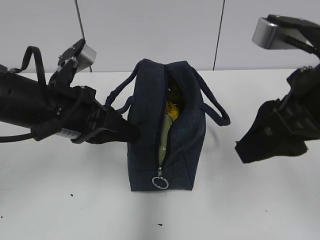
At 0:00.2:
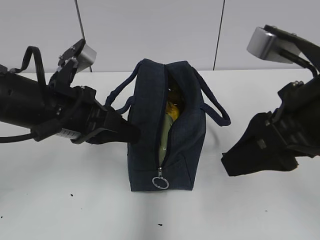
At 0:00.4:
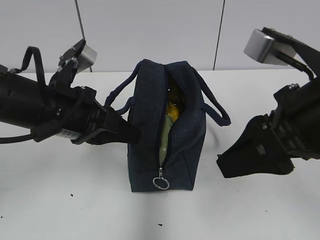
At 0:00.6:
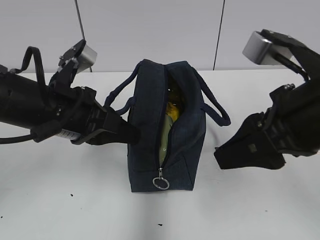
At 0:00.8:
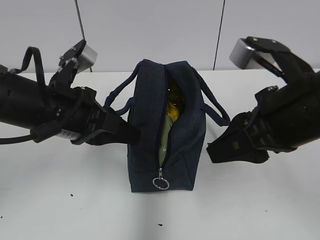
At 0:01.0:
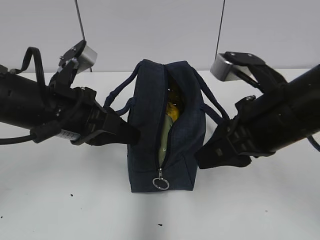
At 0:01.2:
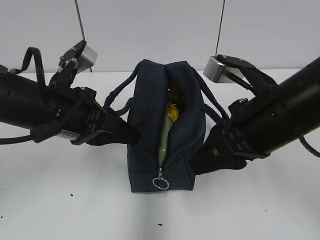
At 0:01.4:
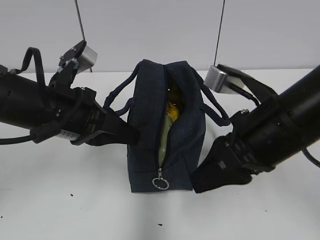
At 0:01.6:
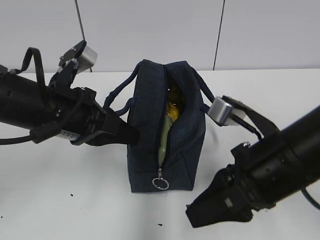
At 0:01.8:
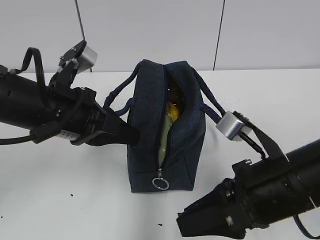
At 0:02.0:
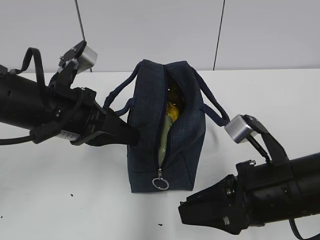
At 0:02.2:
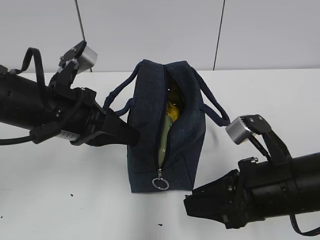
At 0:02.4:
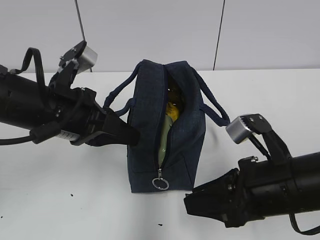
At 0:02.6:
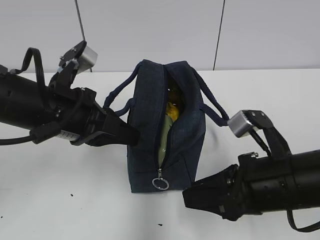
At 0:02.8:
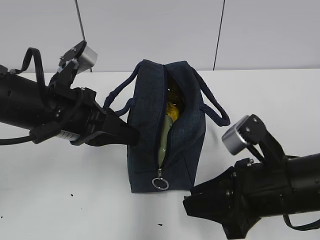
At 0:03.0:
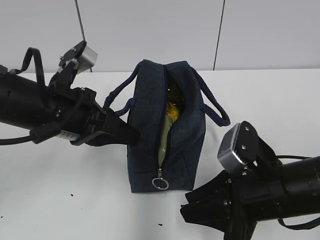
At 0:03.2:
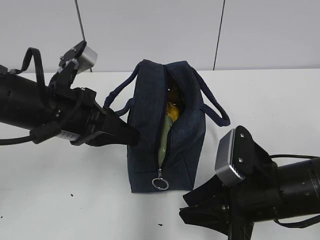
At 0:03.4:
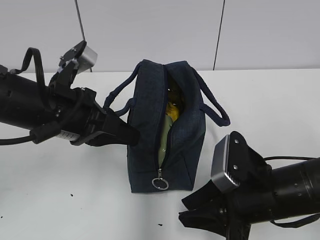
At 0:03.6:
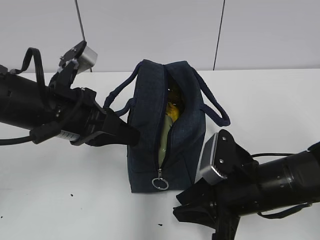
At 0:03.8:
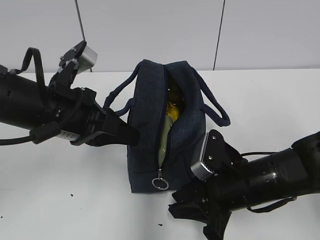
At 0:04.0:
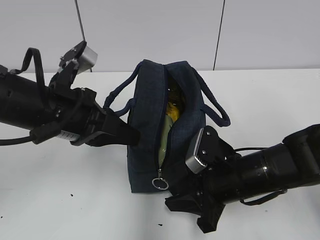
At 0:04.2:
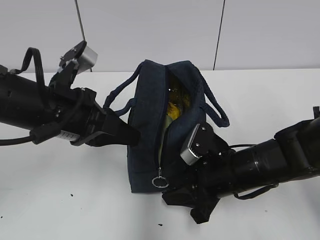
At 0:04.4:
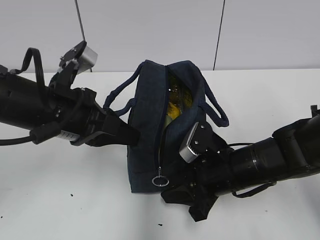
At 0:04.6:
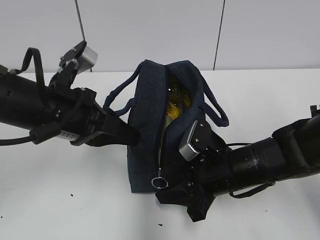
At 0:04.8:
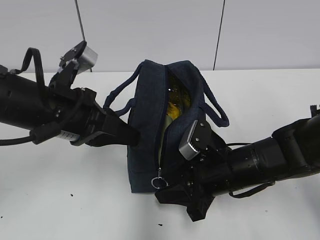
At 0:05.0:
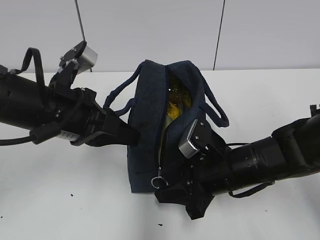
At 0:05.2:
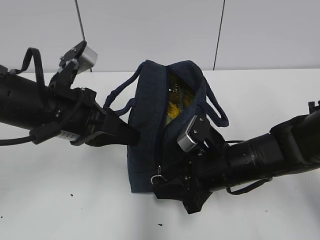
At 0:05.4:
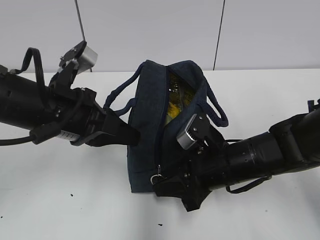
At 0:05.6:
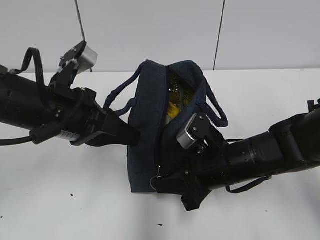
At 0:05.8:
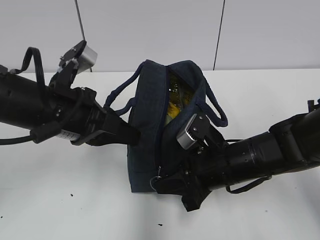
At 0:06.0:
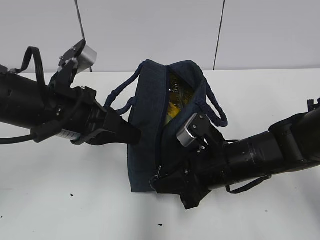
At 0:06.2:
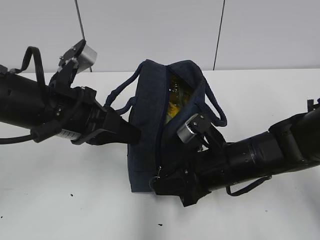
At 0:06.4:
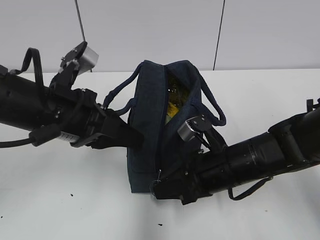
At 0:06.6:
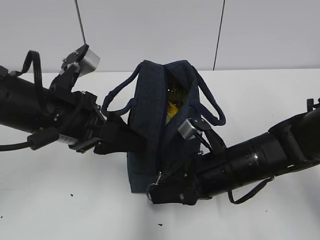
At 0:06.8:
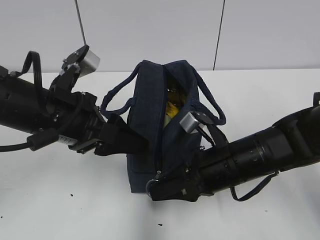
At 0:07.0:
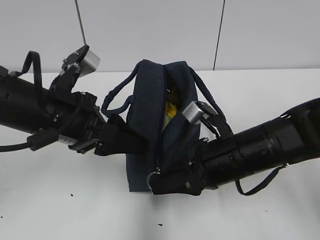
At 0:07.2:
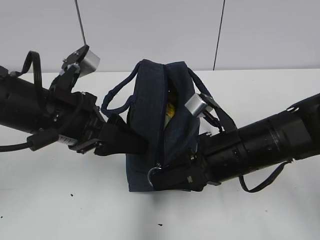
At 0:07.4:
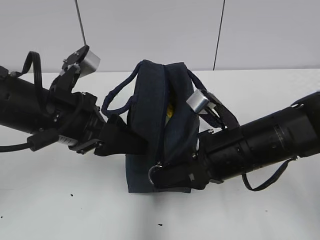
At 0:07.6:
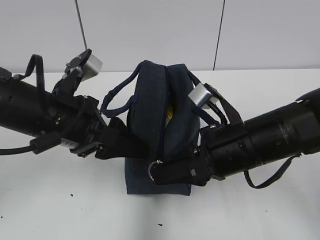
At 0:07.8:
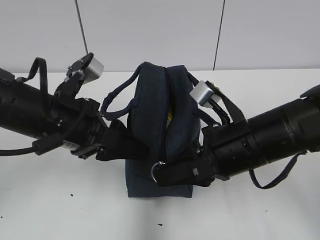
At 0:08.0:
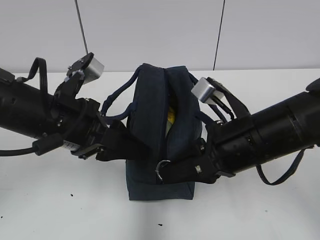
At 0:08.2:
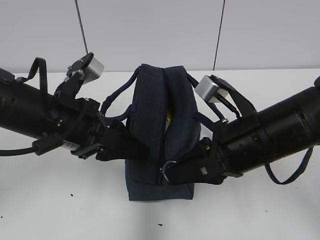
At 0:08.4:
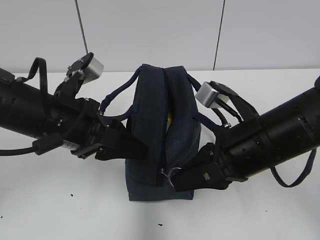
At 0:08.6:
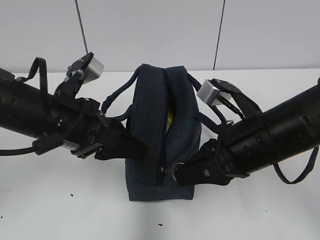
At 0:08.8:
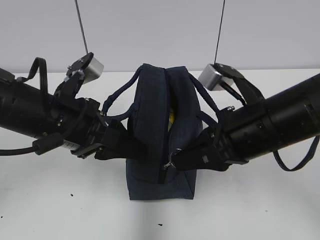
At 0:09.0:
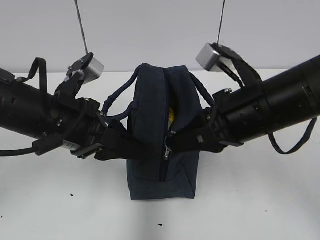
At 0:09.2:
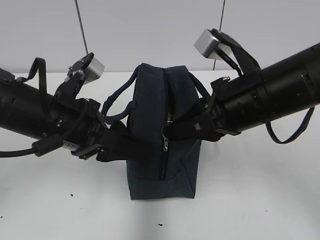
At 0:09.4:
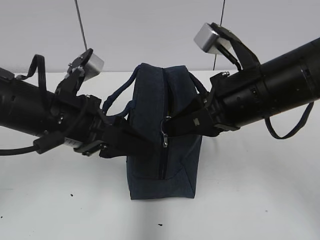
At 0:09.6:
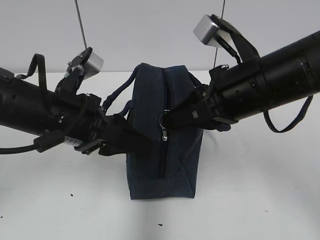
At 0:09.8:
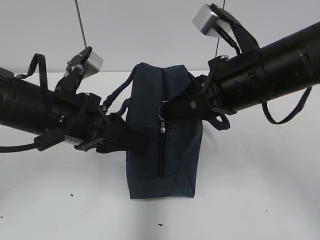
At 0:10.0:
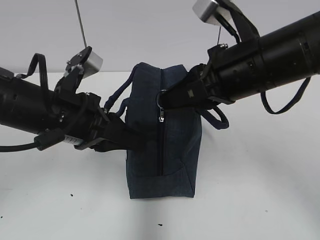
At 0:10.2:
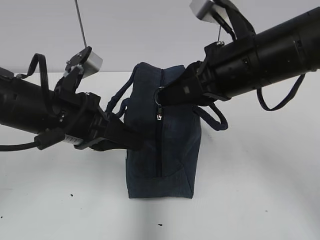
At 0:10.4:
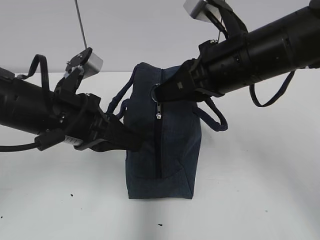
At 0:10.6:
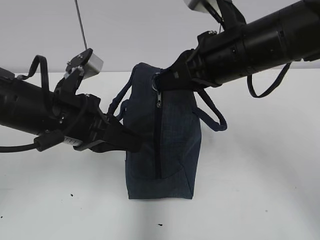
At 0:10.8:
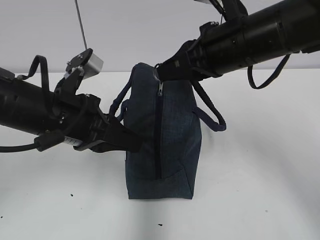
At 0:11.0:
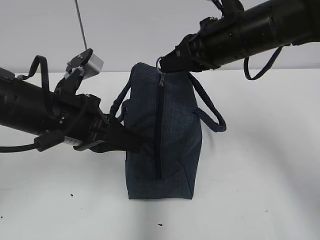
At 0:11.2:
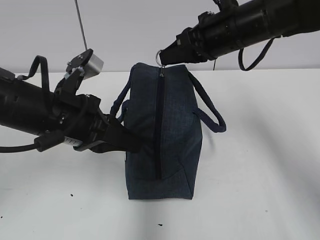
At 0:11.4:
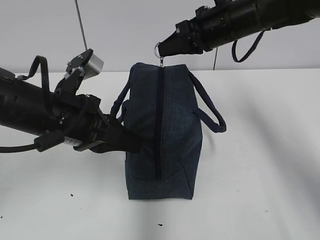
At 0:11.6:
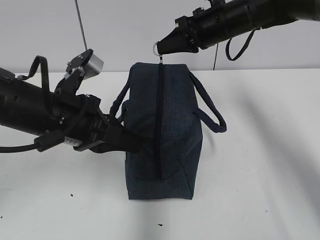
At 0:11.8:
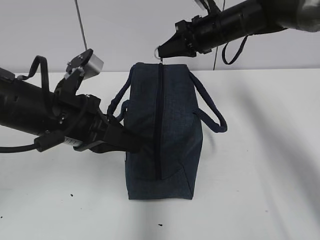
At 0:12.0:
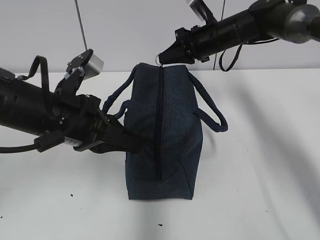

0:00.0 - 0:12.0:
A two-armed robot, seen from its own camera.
0:00.0 - 0:01.6: The right gripper shifts about 10 cm downward.
0:01.6 - 0:03.0: The right gripper goes approximately 5 cm downward.
0:03.0 - 0:04.4: The right gripper shifts about 10 cm forward and downward.
0:04.4 - 0:06.0: The right gripper closes.
0:06.0 - 0:07.6: The right gripper shifts some 5 cm upward; the left gripper opens its fingers.
0:07.6 - 0:09.0: The right gripper travels upward by some 5 cm.
0:09.0 - 0:10.4: The right gripper moves some 5 cm. Meanwhile the left gripper closes up.
0:10.4 - 0:12.0: The right gripper heads forward, covering approximately 20 cm.

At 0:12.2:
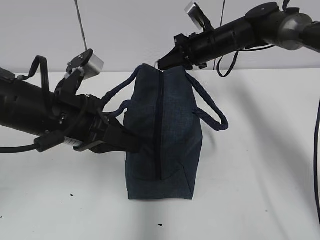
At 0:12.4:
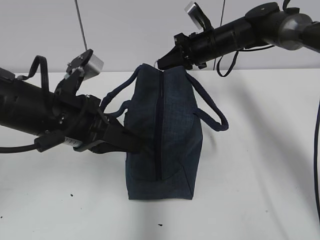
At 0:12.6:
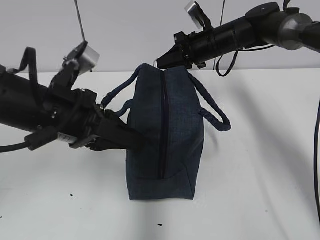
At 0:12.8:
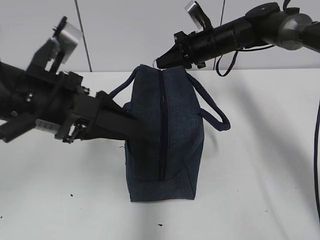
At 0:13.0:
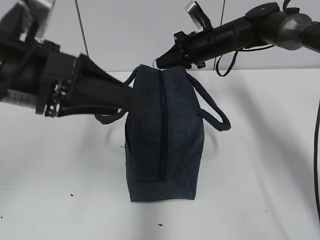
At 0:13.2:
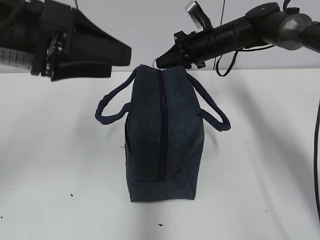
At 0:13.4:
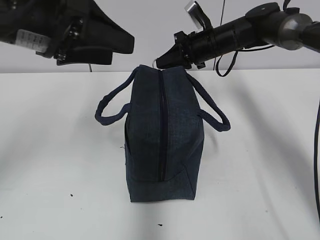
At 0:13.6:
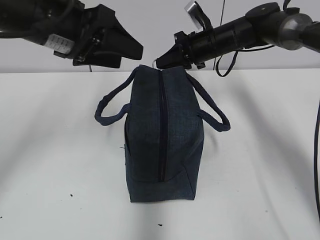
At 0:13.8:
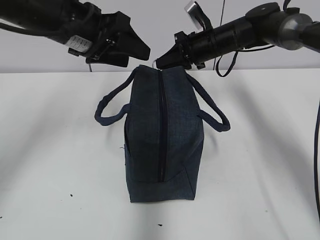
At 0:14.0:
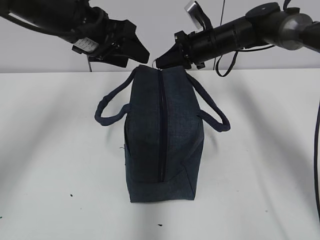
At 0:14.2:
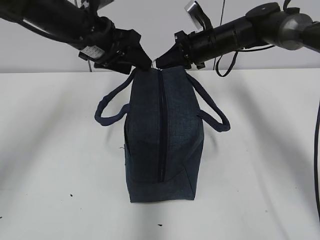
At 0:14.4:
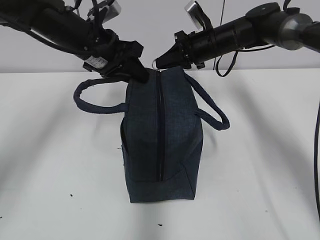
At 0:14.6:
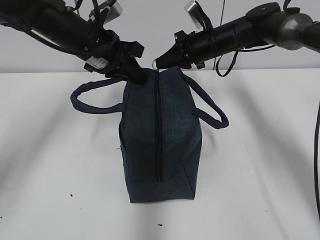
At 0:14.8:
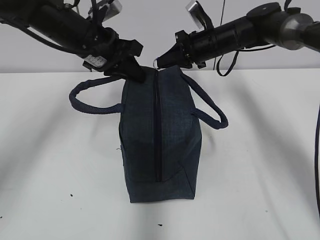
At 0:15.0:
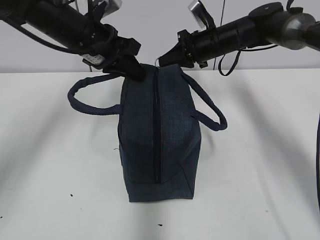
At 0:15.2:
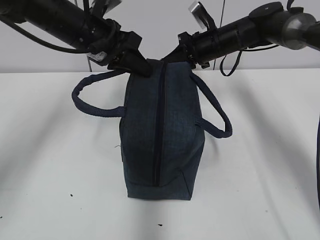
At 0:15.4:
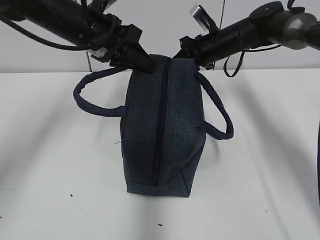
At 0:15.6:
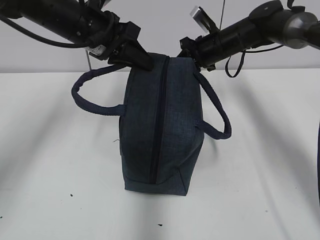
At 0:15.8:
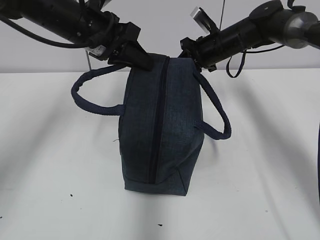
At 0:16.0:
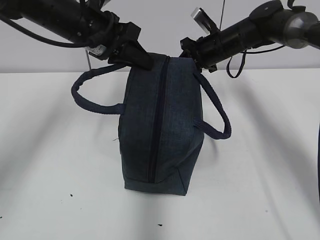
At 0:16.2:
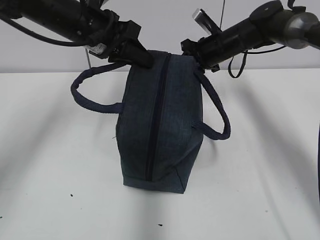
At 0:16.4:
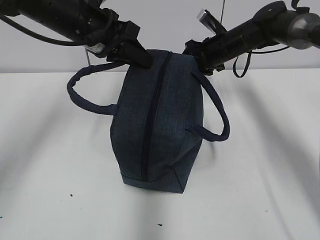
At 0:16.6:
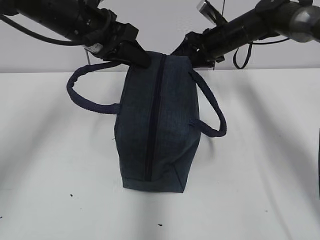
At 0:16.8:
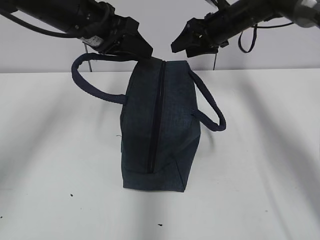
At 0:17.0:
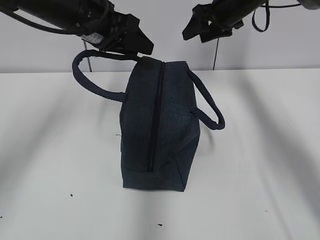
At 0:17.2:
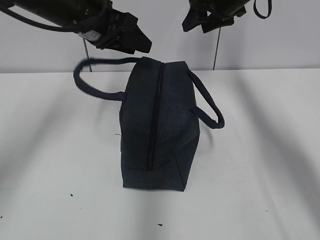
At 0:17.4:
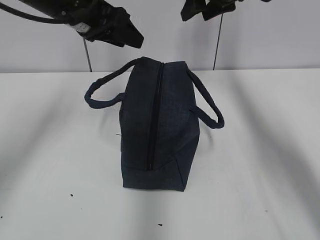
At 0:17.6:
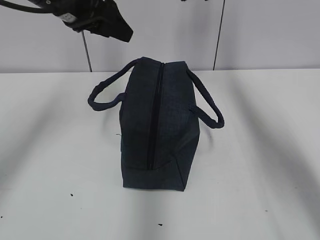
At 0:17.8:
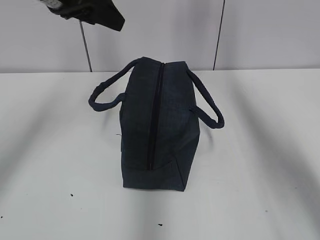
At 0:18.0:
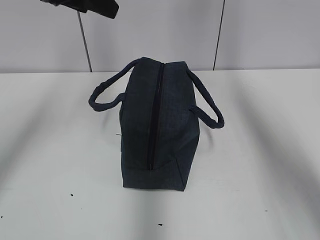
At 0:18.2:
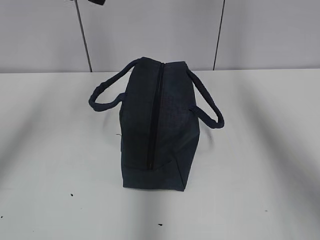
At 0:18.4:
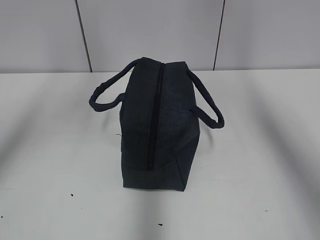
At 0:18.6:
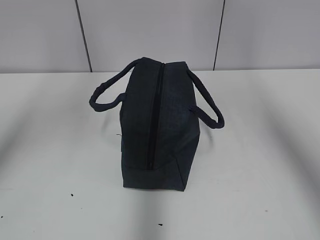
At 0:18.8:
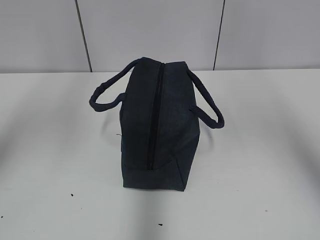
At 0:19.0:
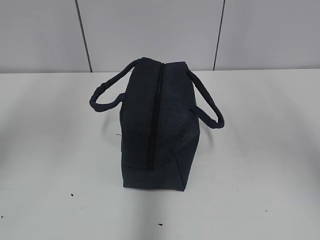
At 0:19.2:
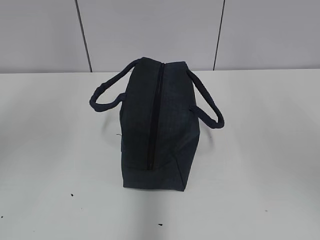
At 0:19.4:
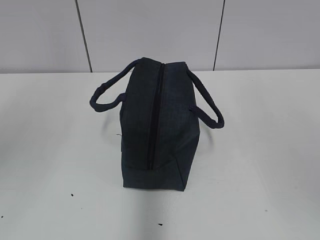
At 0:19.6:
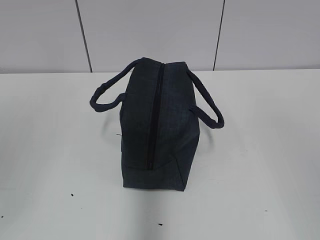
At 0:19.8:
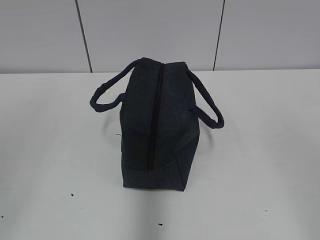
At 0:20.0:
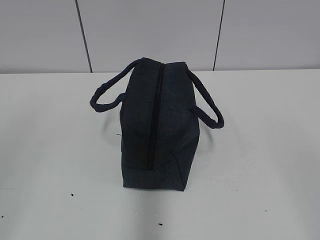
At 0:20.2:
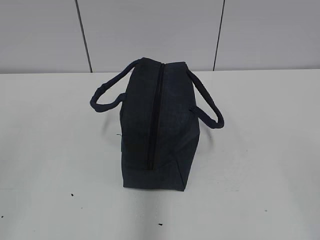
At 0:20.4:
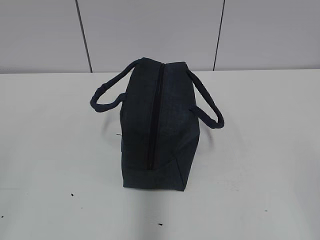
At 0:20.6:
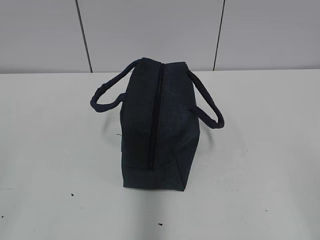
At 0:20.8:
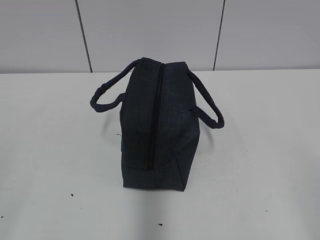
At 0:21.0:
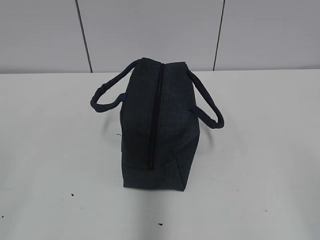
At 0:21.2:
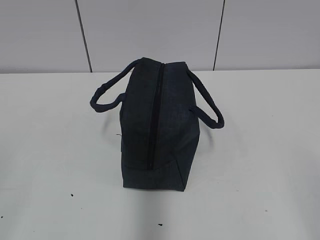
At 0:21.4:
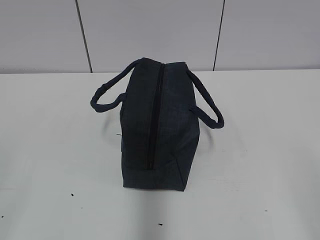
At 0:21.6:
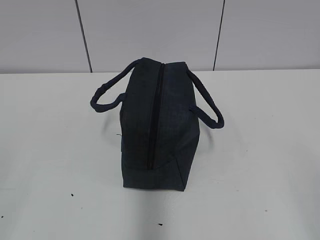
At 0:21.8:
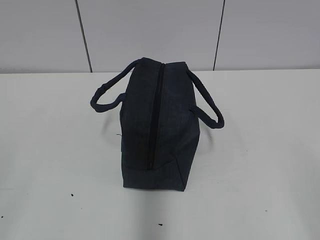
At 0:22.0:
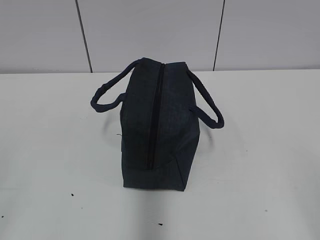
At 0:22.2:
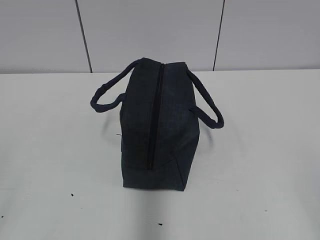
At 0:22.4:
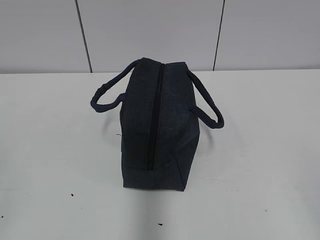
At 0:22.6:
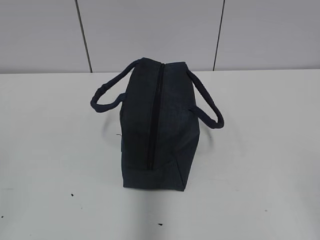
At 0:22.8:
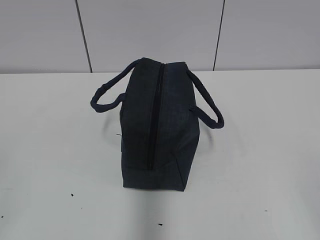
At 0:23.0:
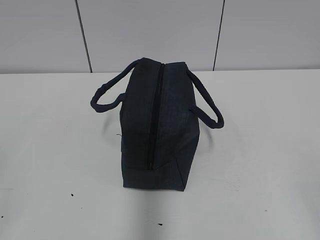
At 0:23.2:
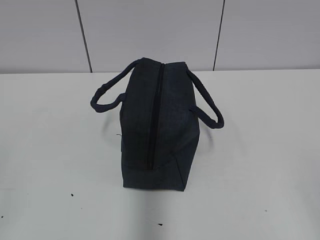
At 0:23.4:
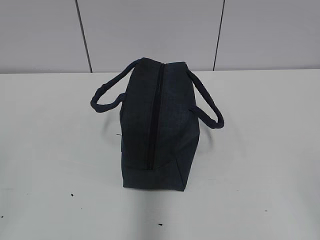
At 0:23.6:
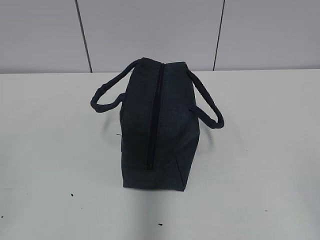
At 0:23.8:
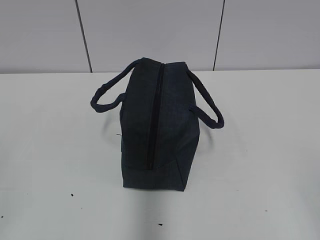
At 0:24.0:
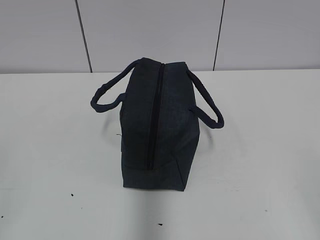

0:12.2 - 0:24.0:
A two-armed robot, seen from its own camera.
0:12.2 - 0:13.6: The left gripper travels upward and forward by approximately 10 cm, and opens up.
0:13.6 - 0:15.2: The left gripper heads forward, covering about 5 cm, and closes its fingers.
0:15.2 - 0:16.6: The right gripper opens its fingers.
0:16.6 - 0:18.2: The left gripper is displaced upward, backward and to the left by about 15 cm, and opens its fingers. The right gripper heads upward and backward, covering approximately 35 cm.
0:18.2 - 0:19.6: The left gripper shifts some 25 cm backward and to the left. The right gripper goes about 35 cm backward.
0:22.6 - 0:24.0: Both grippers stay put.
